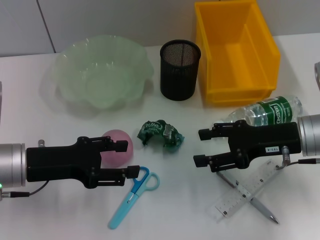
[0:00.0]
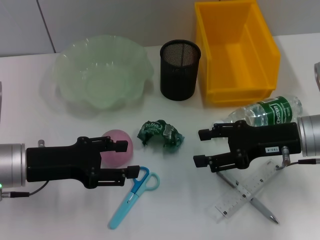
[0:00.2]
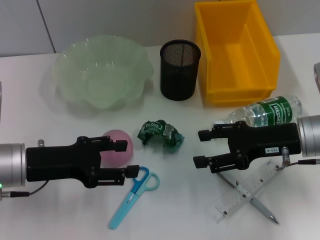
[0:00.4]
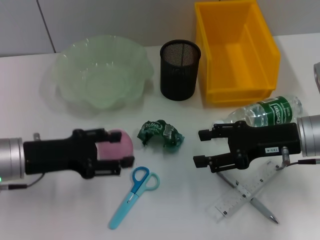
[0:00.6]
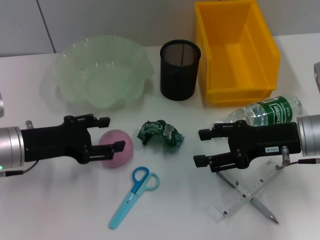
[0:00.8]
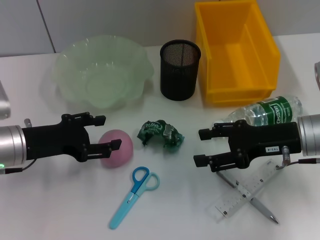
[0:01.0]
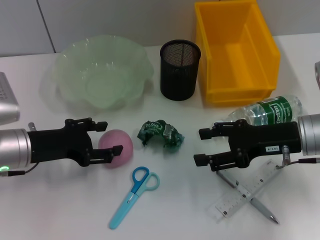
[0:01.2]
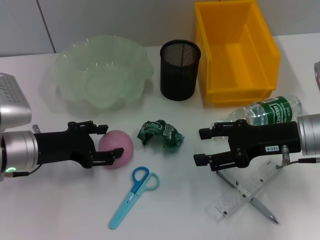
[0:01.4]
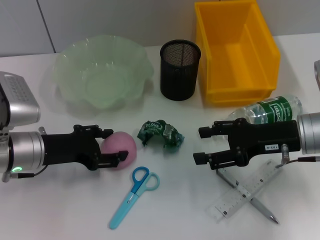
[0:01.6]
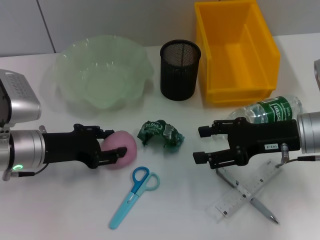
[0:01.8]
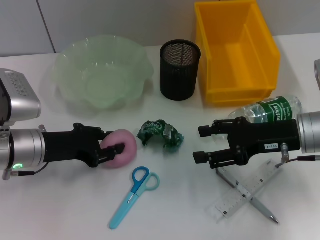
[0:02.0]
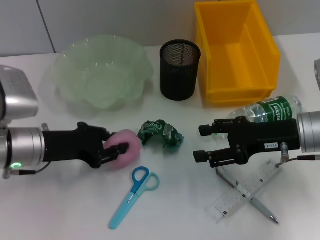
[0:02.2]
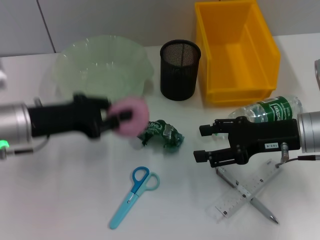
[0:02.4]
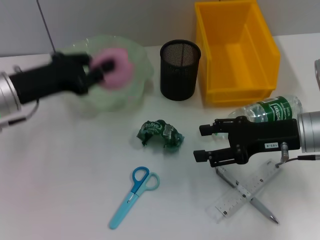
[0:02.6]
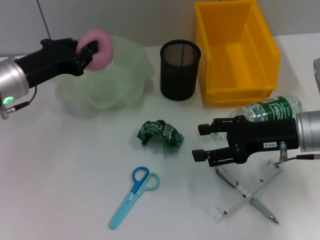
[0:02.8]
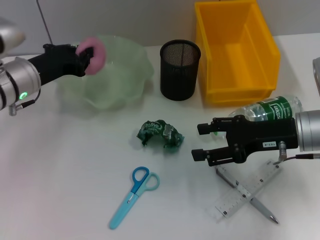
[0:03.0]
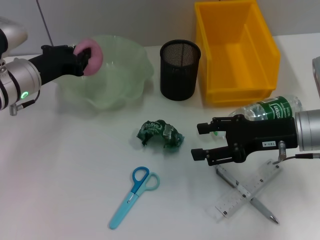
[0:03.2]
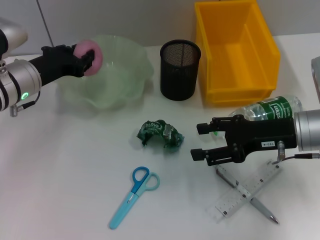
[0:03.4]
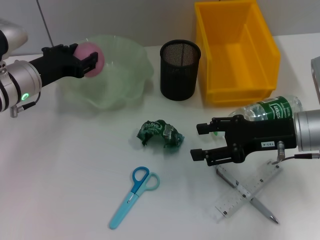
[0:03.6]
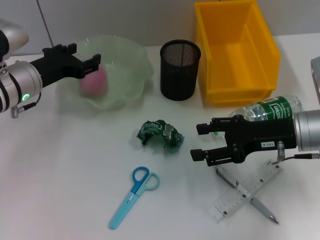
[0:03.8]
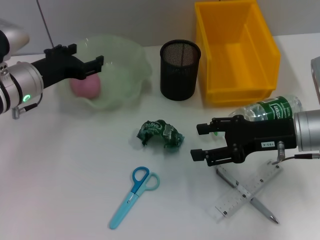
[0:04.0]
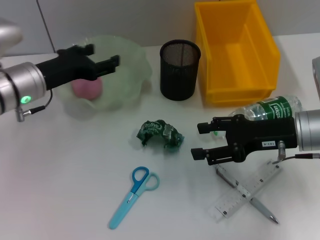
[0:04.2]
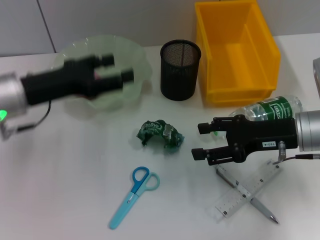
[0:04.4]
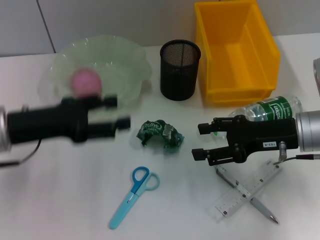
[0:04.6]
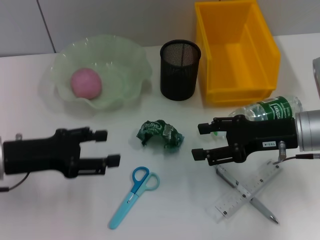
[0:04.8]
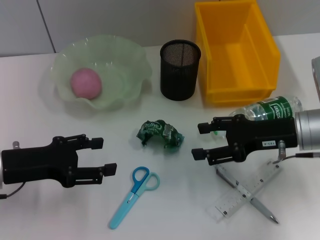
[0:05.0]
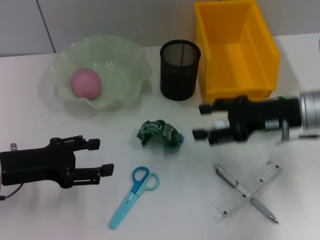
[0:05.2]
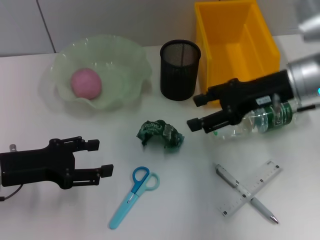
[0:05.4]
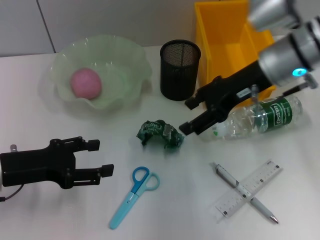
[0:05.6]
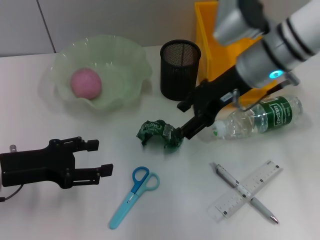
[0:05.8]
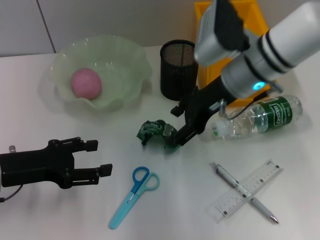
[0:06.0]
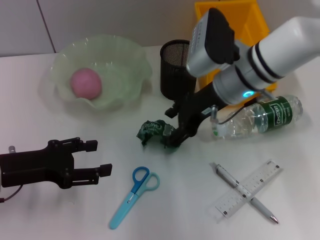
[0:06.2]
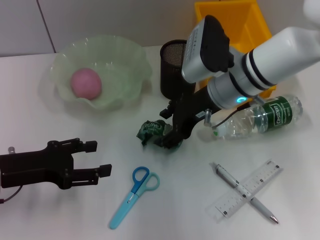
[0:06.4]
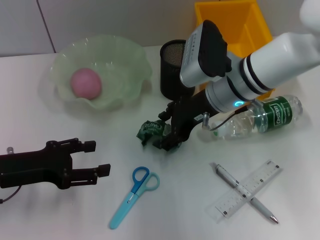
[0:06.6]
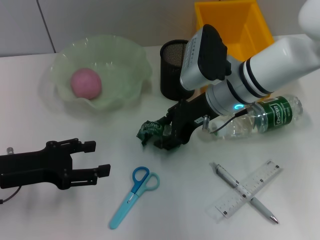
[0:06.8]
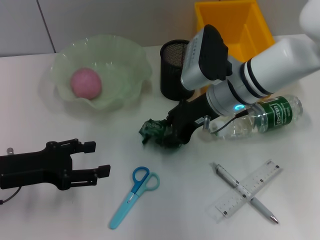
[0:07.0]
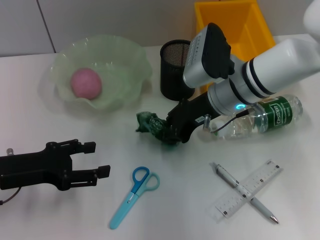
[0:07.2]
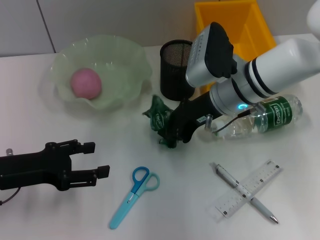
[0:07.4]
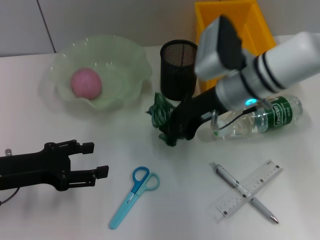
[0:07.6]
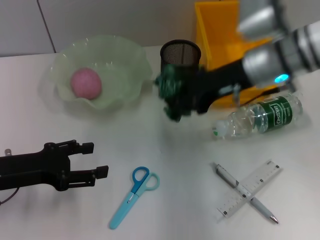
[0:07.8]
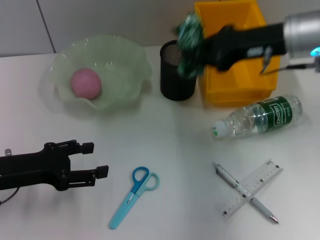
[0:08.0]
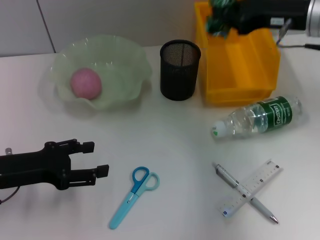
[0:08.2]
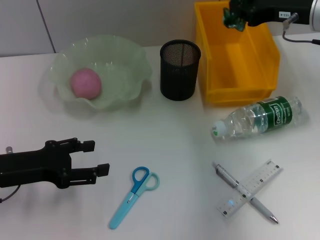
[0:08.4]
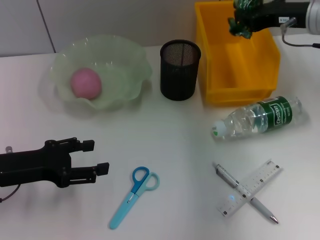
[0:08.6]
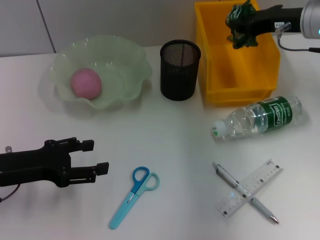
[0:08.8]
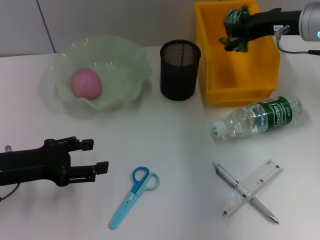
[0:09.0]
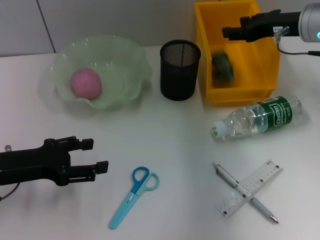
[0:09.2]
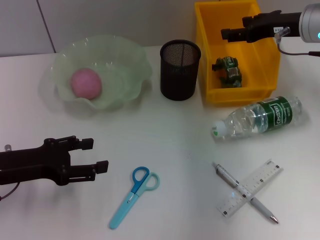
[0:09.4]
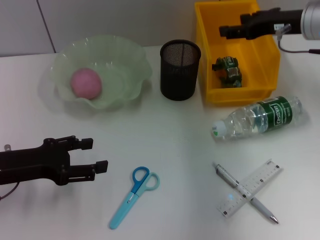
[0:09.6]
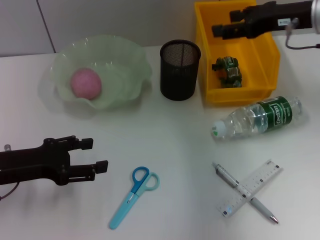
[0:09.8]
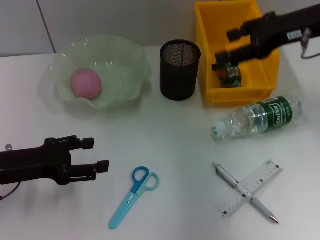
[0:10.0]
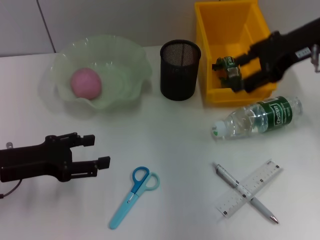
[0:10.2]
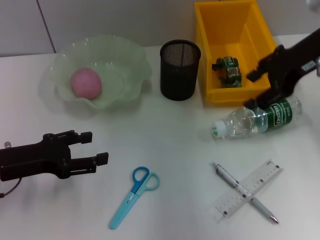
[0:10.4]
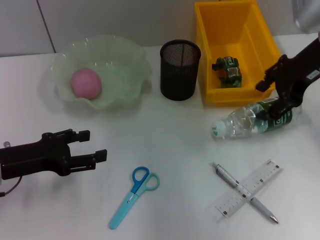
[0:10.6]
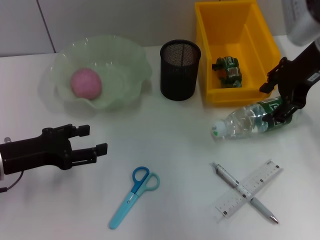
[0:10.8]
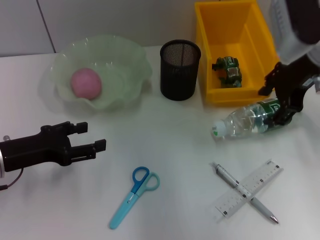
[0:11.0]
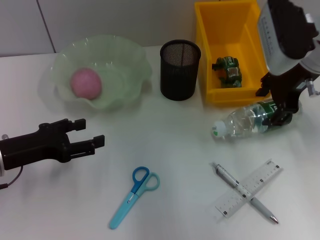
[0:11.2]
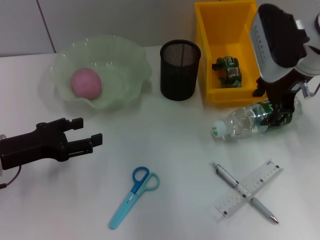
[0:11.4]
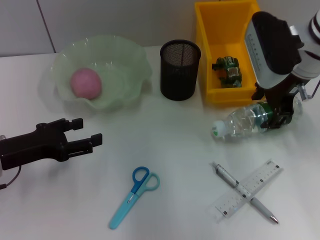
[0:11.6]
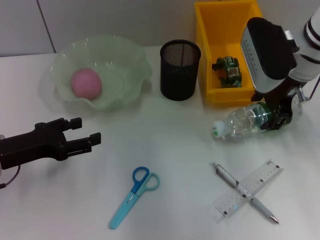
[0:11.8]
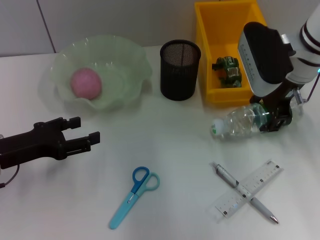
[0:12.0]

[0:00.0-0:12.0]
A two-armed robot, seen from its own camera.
Step, 0:00.0 to 0:01.8: Grab the peach with the left hand.
Step, 0:02.0 to 0:03.8: Place the peach into the fruit bowl with the left hand.
Step, 0:04.0 to 0:07.4: Grab the plastic with the right hand.
Step, 0:07.6 to 0:09.2: Place the plastic into the trash can with the right hand.
0:01.6 to 0:03.0: The left gripper moves forward, about 10 cm, and closes up.
0:03.0 to 0:04.4: The left gripper goes roughly 5 cm backward, and opens.
0:04.4 to 0:06.0: The left gripper shifts about 10 cm backward and downward, while the right gripper heads to the left, forward and upward, covering some 15 cm.
0:06.0 to 0:07.6: The right gripper closes up.
0:07.6 to 0:09.0: The right gripper shifts about 10 cm to the right.
0:09.0 to 0:10.4: The right gripper is displaced upward by approximately 5 cm, and opens up.
0:10.4 to 0:12.0: The right gripper heads downward, covering roughly 5 cm.

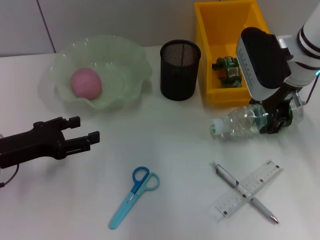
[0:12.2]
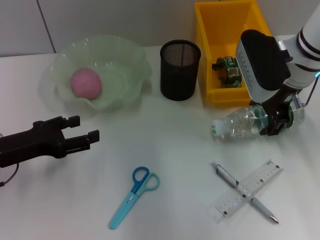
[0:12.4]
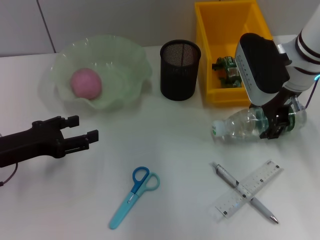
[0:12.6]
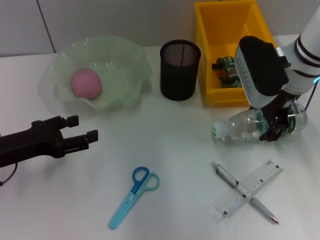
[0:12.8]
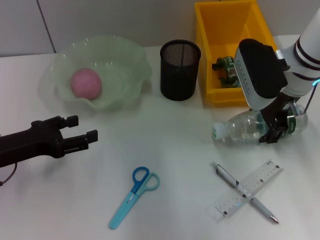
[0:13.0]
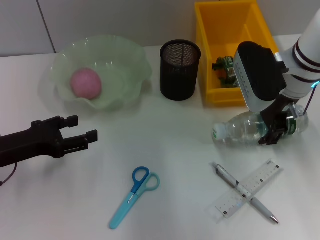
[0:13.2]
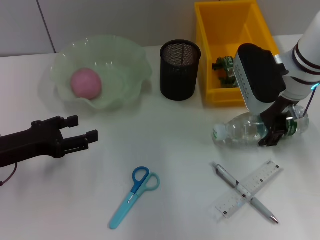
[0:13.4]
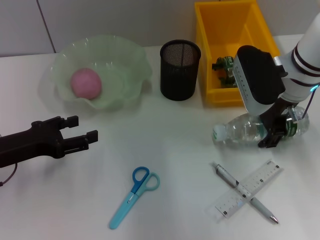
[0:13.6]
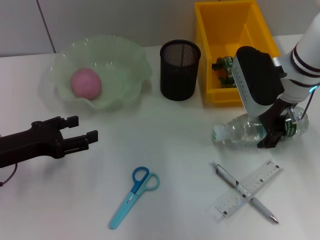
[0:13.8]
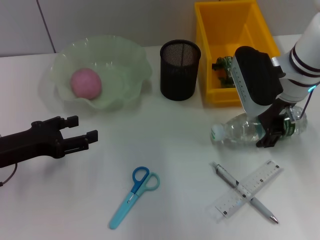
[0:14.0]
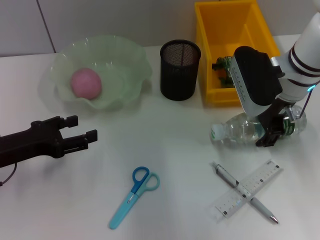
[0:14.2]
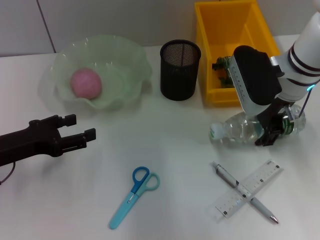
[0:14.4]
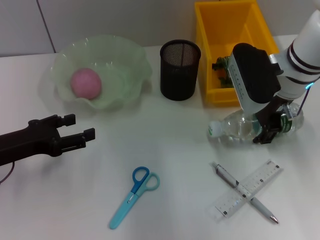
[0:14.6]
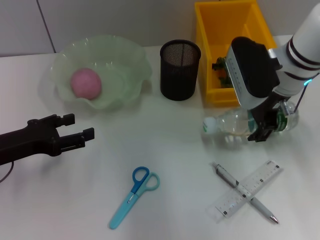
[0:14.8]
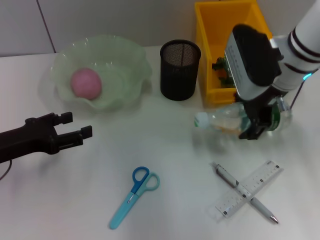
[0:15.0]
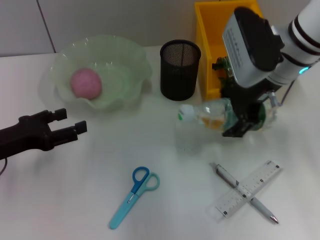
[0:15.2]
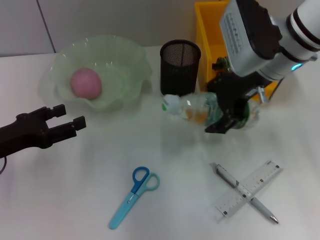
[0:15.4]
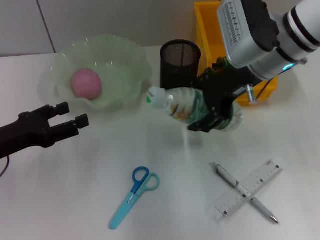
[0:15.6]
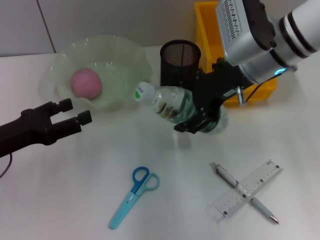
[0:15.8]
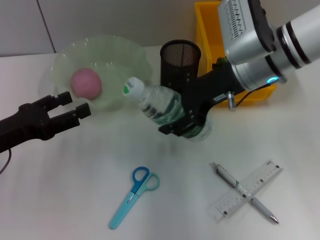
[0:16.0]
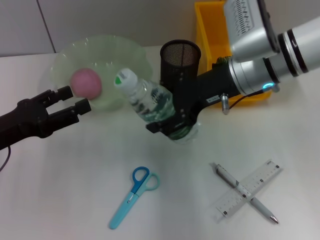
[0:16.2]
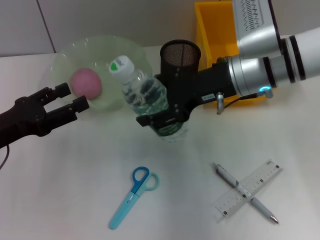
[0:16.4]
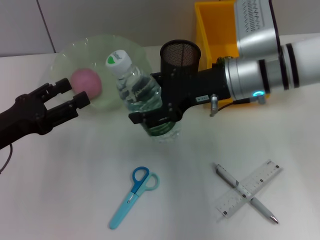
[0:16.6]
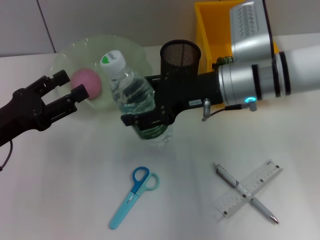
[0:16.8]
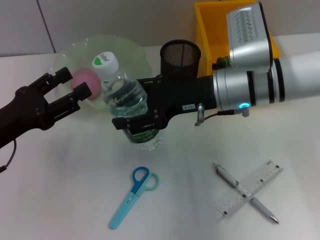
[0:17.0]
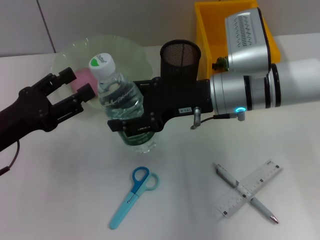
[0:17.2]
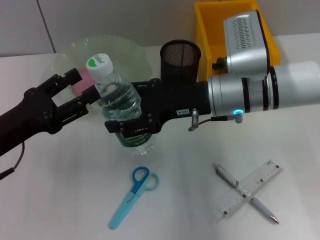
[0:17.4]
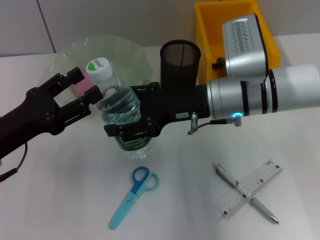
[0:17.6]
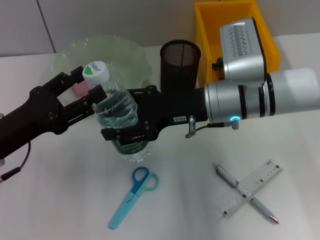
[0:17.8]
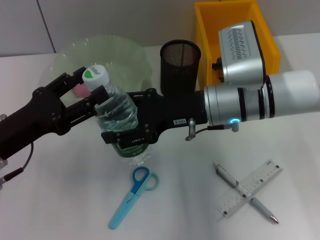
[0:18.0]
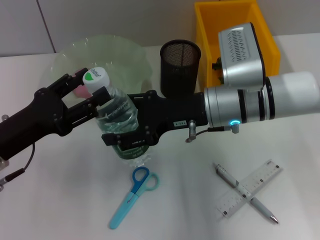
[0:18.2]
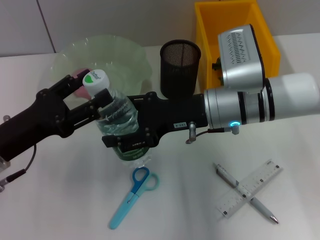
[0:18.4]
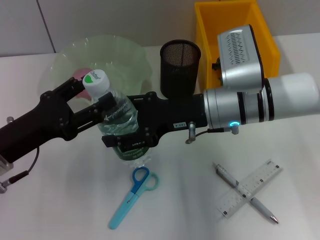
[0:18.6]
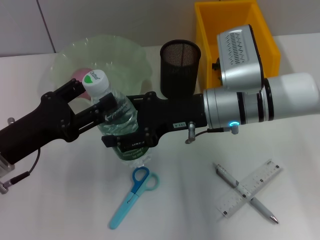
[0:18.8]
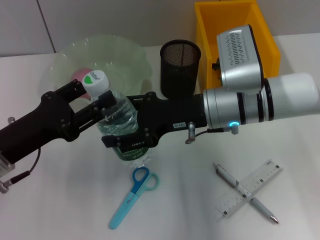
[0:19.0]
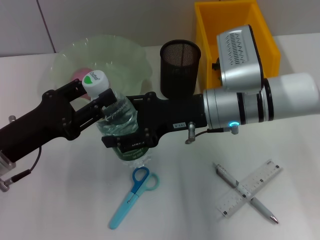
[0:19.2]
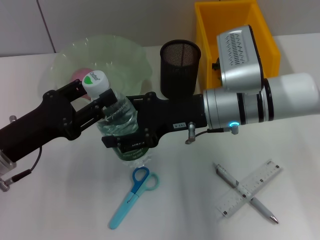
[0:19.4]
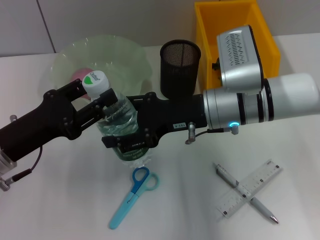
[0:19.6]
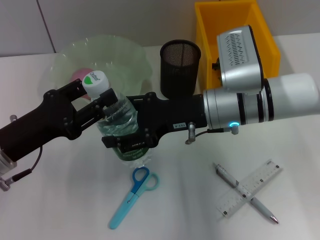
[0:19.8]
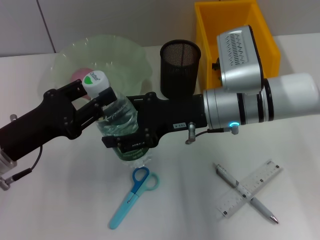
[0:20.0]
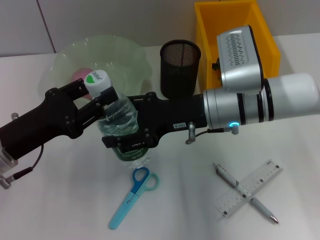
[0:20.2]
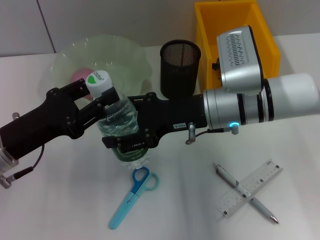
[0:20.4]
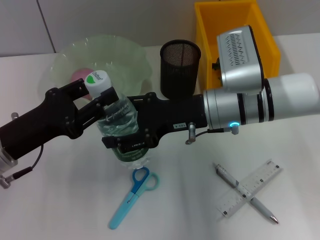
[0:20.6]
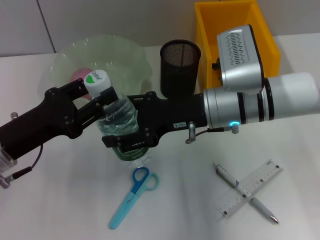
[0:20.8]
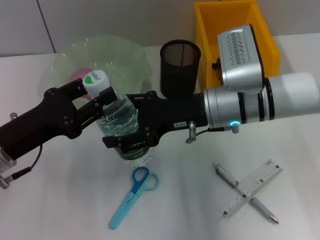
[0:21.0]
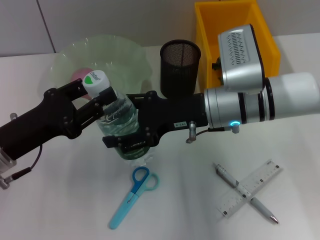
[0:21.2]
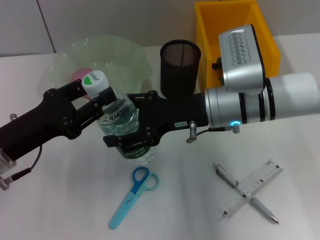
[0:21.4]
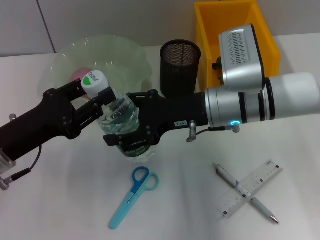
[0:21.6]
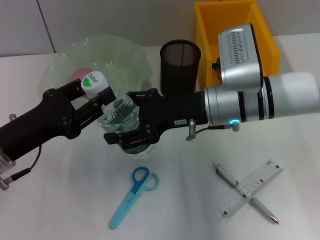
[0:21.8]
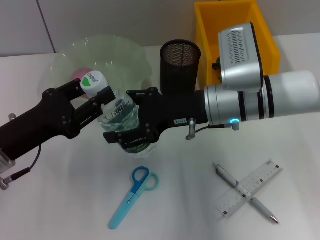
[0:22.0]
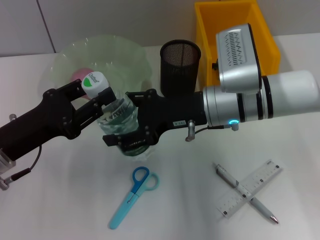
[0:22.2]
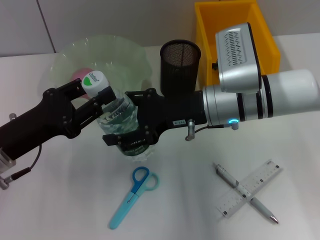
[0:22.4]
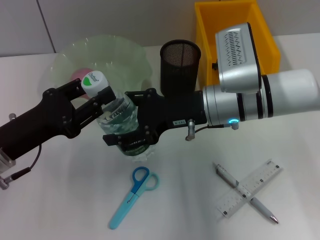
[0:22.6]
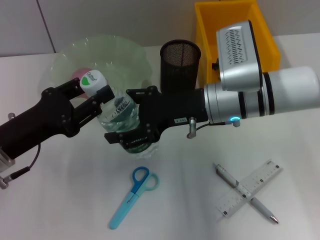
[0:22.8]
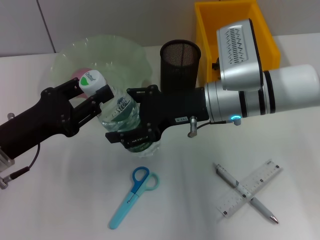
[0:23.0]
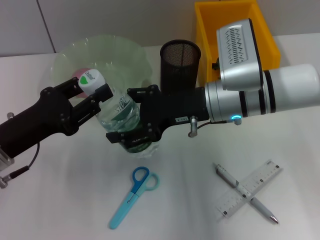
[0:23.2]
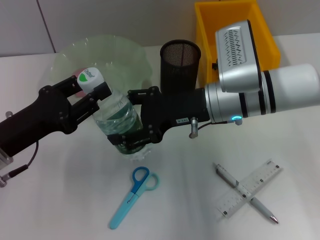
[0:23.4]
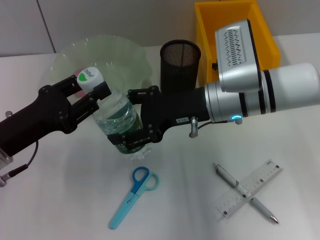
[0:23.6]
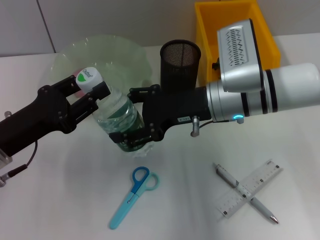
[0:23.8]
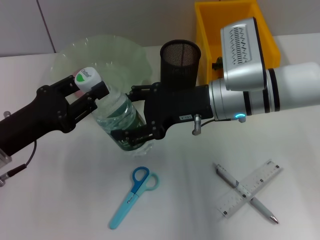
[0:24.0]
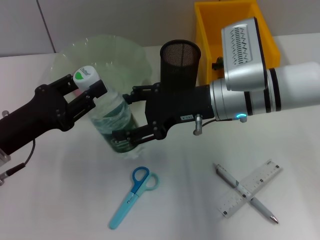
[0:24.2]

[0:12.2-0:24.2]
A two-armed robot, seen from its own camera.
Step, 0:12.2 to 0:14.4: Grab the water bottle with the right hand.
0:12.2 to 0:13.8: There are only small adjustments of the grippers.
0:13.8 to 0:15.2: The right gripper shifts by some 5 cm.
0:15.2 to 0:16.6: The right gripper ends up roughly 5 cm from where it was.
0:18.2 to 0:19.8: The left gripper closes.
0:19.8 to 0:22.6: Both grippers stay about where they are.
0:22.6 to 0:24.2: Both grippers stay put.
